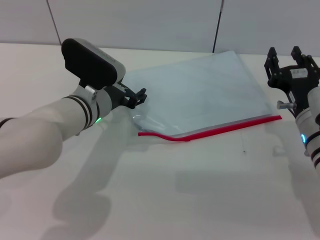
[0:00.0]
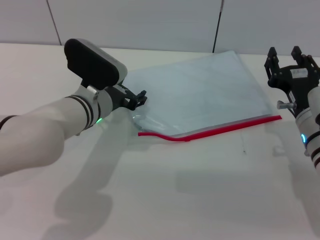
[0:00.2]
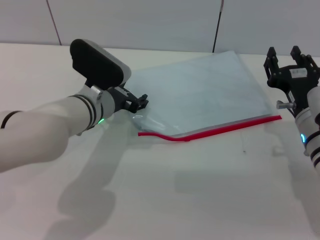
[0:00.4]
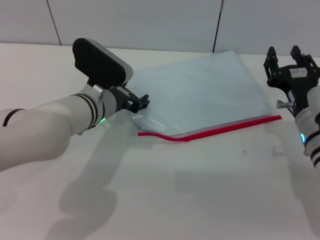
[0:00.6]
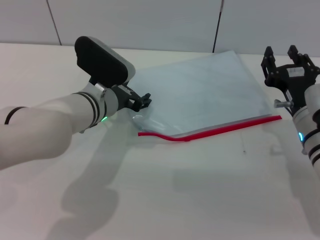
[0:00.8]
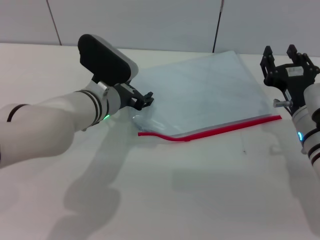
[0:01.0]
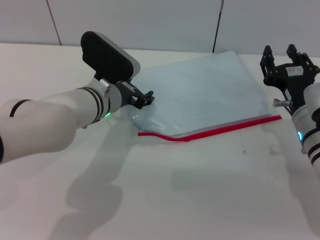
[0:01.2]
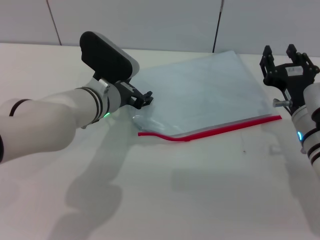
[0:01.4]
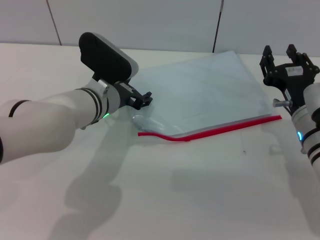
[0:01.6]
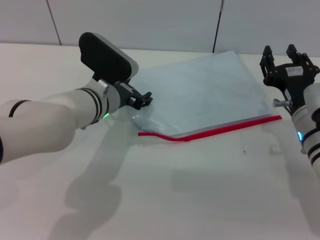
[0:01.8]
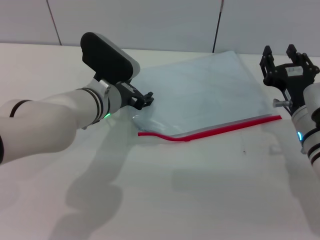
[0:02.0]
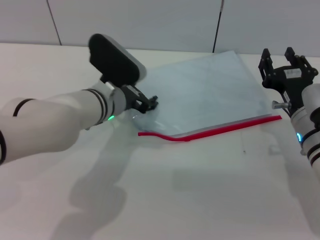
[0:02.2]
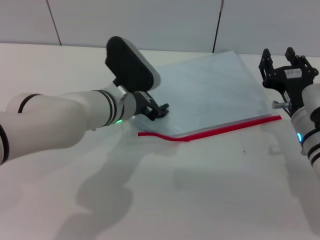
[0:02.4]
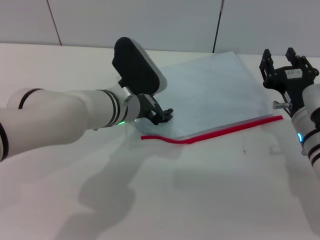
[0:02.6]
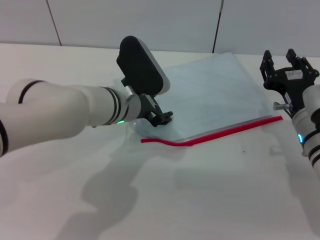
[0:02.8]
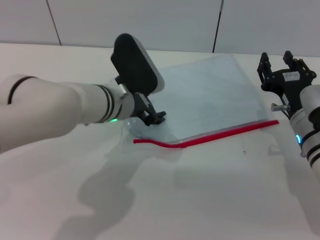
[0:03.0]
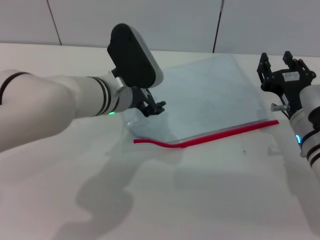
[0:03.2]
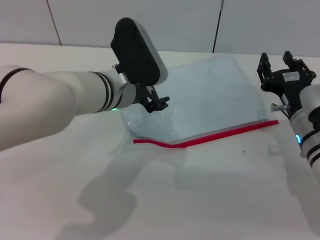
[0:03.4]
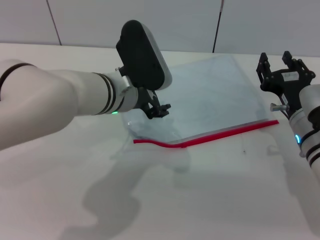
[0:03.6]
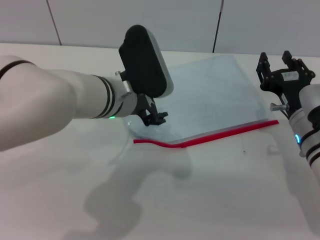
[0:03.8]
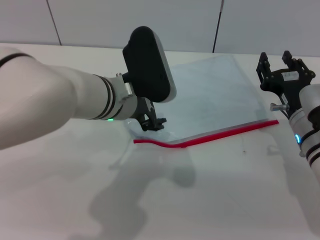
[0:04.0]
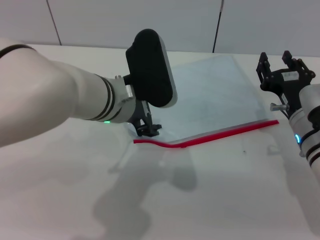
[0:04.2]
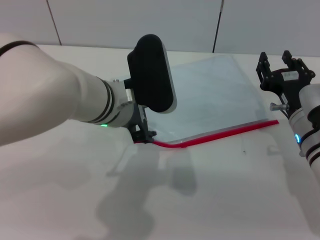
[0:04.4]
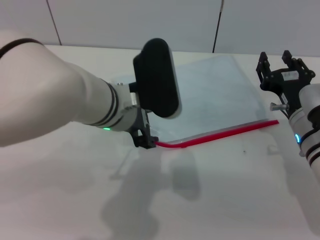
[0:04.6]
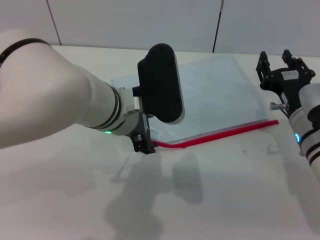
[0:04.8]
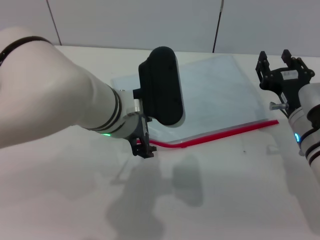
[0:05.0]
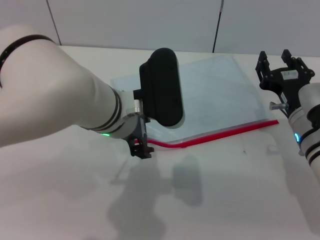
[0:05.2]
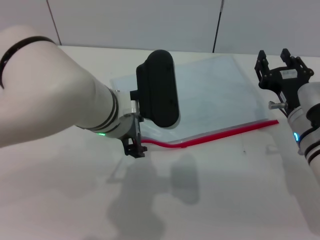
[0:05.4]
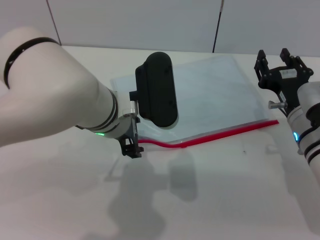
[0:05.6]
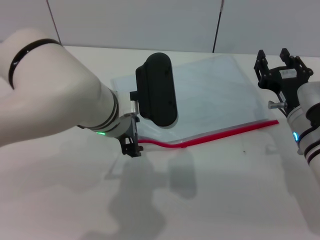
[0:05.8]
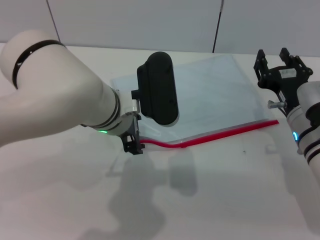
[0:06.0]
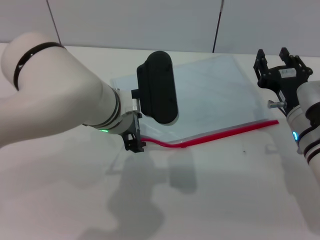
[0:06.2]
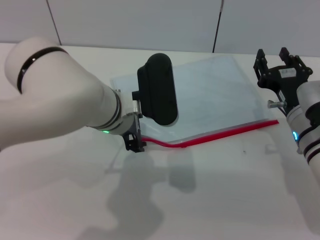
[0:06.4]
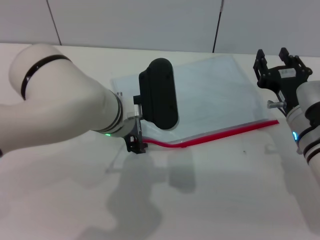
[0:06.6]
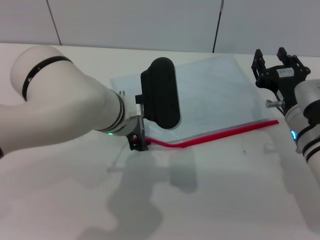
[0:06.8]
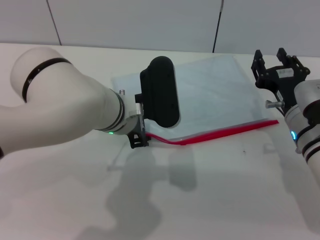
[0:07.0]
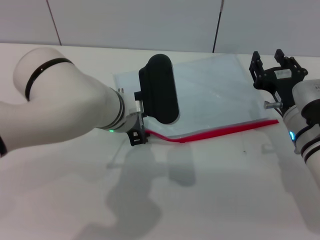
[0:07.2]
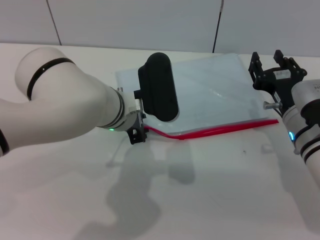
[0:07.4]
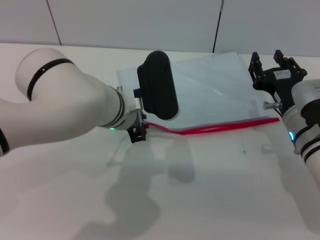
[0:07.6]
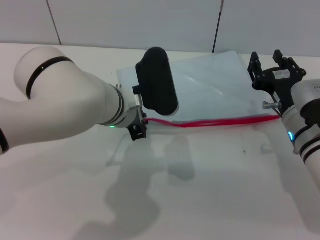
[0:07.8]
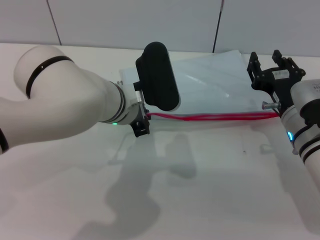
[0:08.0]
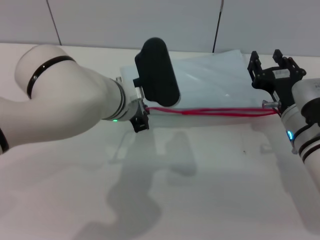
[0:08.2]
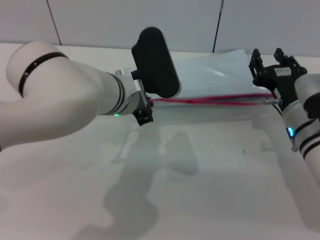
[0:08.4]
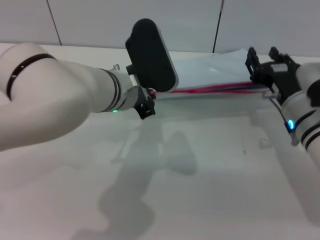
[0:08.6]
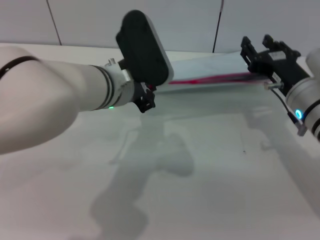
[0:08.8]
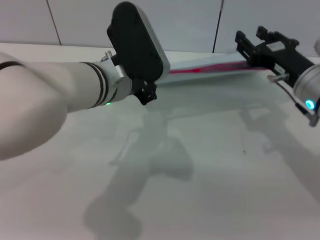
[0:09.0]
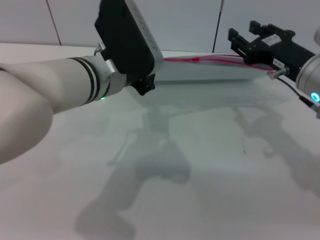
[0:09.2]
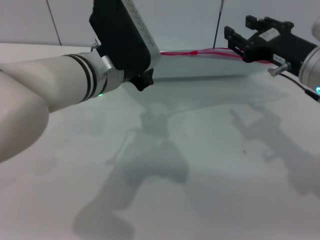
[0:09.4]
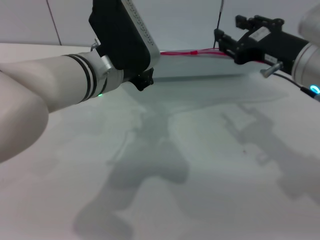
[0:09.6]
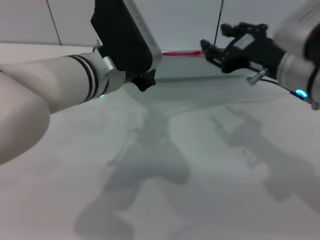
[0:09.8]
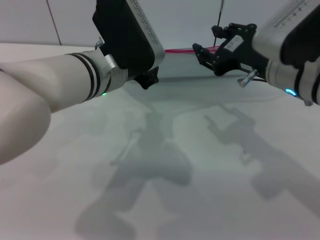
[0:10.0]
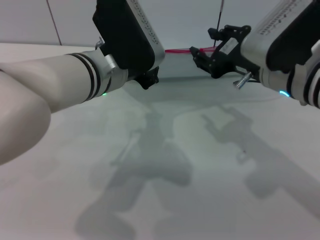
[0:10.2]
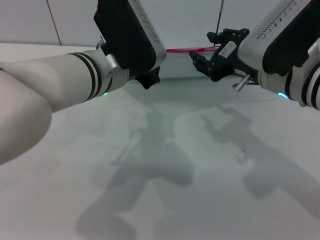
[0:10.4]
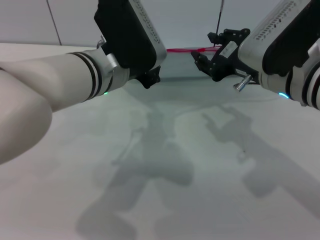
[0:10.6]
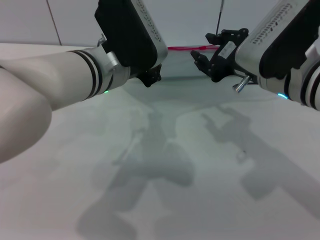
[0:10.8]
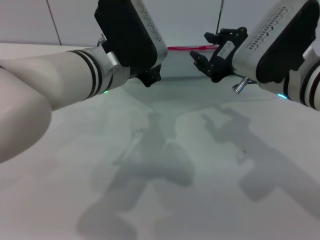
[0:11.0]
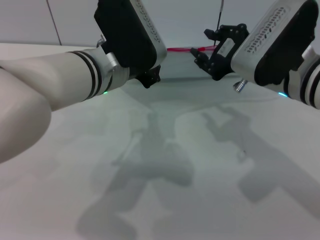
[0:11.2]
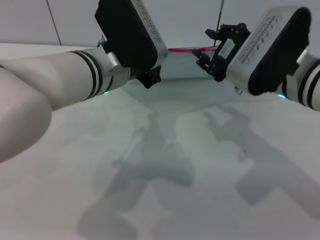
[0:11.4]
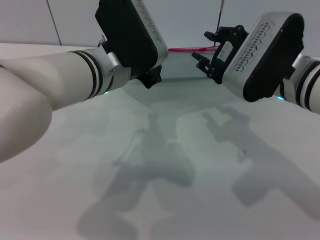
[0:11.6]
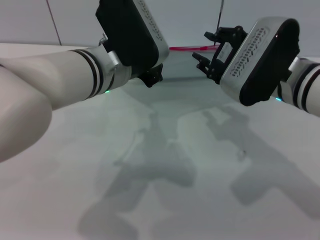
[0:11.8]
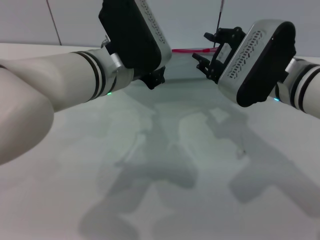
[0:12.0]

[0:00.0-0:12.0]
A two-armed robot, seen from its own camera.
Step, 0:00.0 to 0:08.4: Pick up the transparent plastic bag with the left gripper.
0:00.0 to 0:01.6: The grippers make only small movements.
0:03.0 to 0:04.4: The left gripper shifts roughly 5 cm upward.
0:04.4 to 0:06.0: The grippers stay close to where they were, moving slightly.
0:06.0 to 0:07.6: The left gripper closes its fingers.
0:07.6 to 0:09.0: The right gripper shifts some 5 cm upward.
0:09.0 to 0:10.4: The right gripper shifts approximately 5 cm to the left.

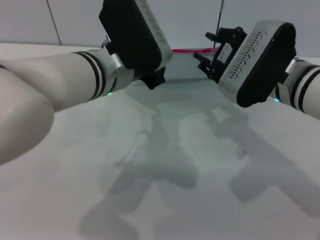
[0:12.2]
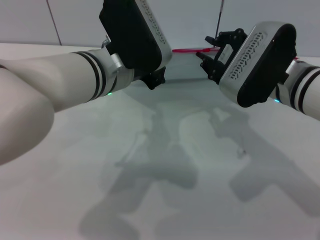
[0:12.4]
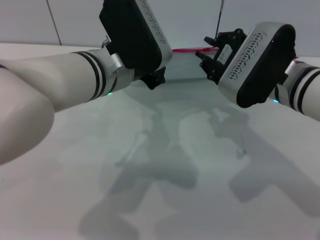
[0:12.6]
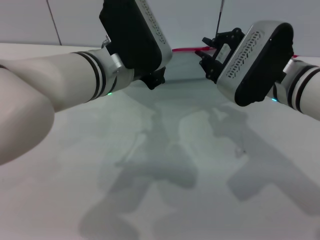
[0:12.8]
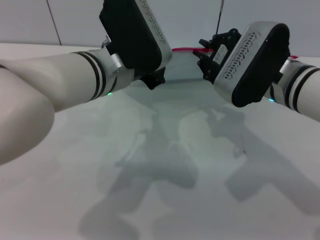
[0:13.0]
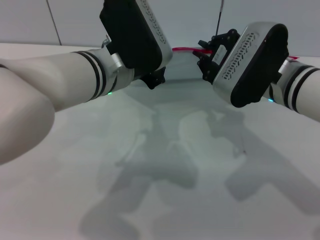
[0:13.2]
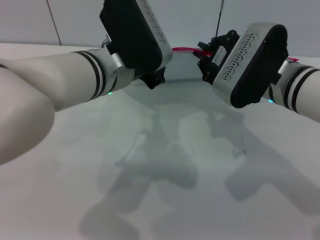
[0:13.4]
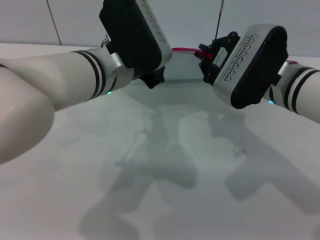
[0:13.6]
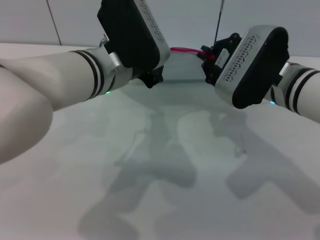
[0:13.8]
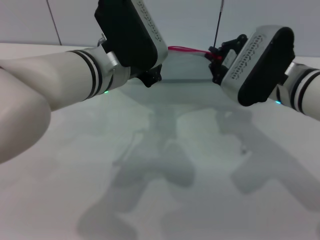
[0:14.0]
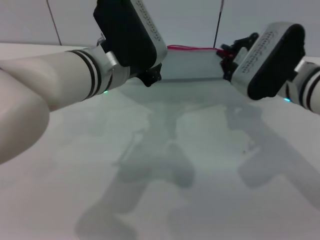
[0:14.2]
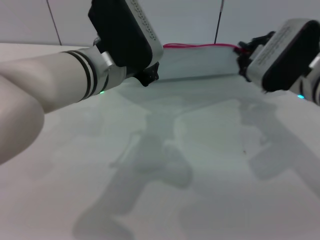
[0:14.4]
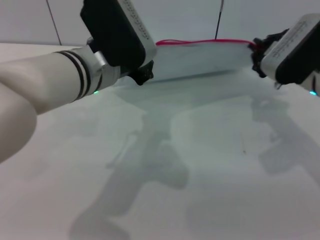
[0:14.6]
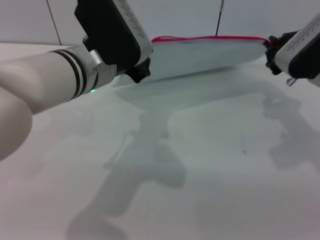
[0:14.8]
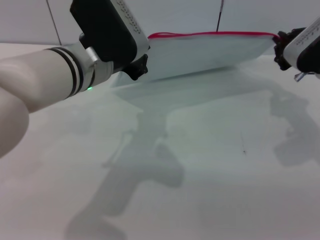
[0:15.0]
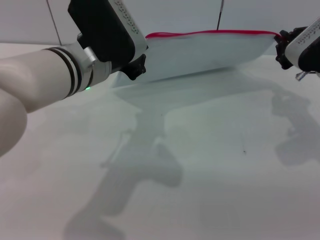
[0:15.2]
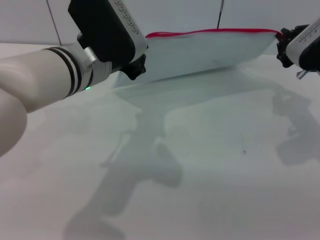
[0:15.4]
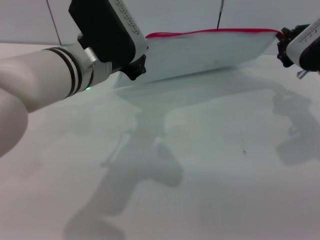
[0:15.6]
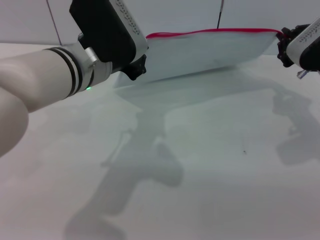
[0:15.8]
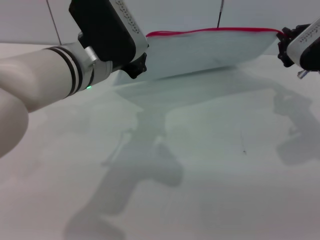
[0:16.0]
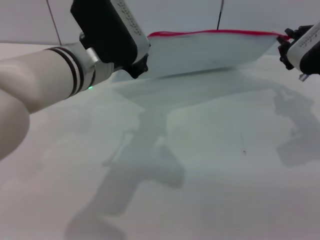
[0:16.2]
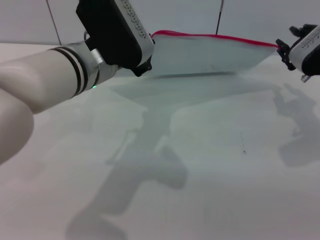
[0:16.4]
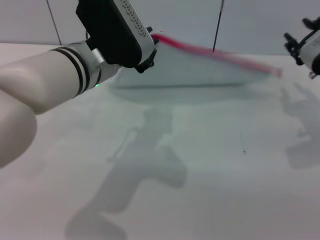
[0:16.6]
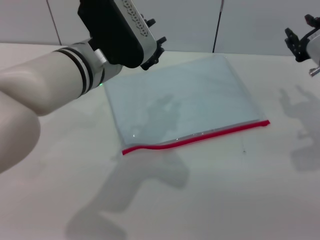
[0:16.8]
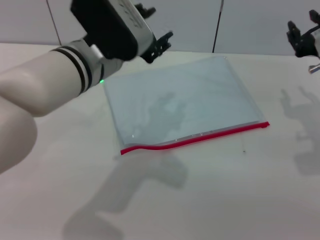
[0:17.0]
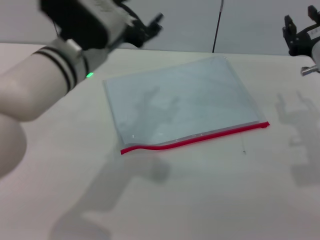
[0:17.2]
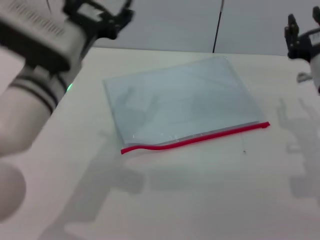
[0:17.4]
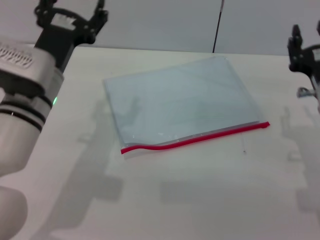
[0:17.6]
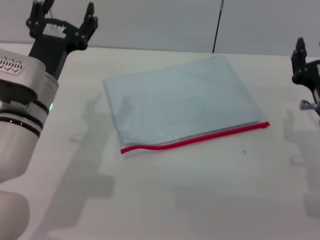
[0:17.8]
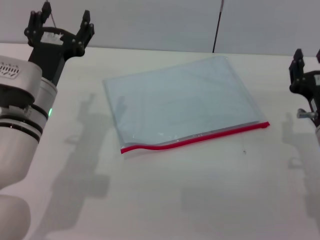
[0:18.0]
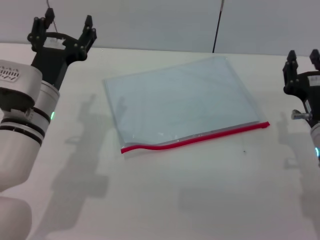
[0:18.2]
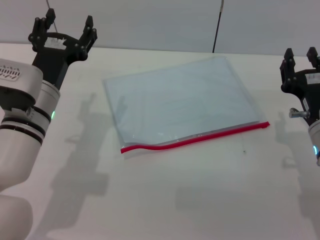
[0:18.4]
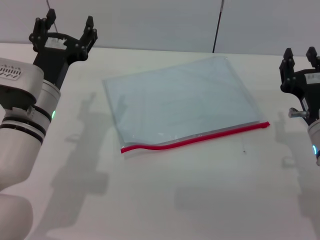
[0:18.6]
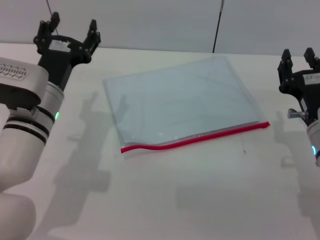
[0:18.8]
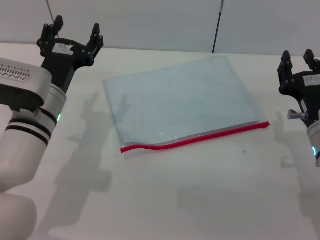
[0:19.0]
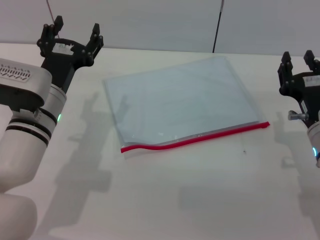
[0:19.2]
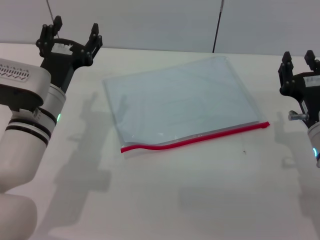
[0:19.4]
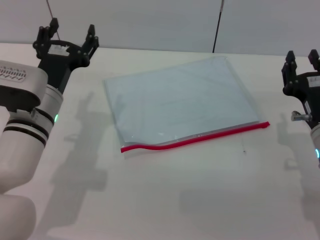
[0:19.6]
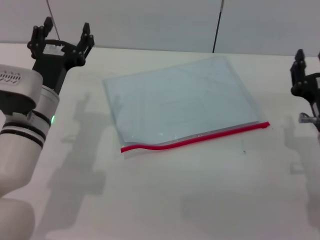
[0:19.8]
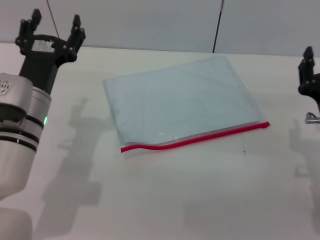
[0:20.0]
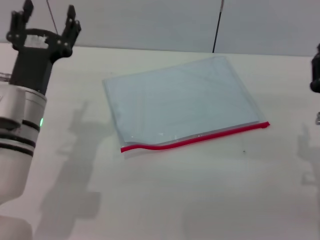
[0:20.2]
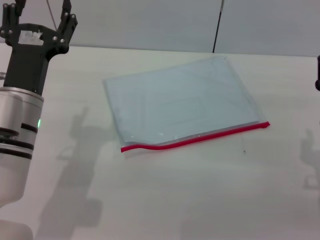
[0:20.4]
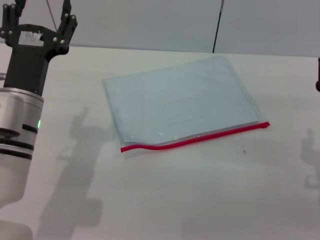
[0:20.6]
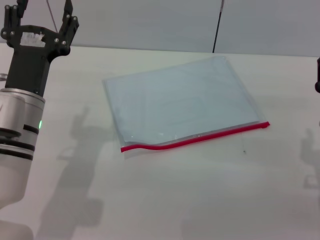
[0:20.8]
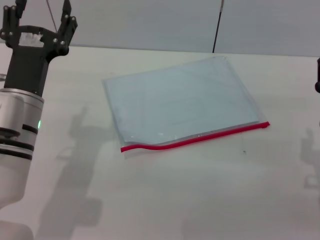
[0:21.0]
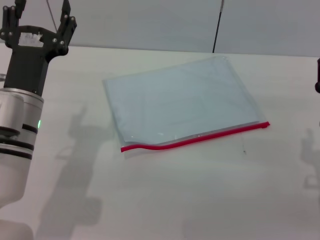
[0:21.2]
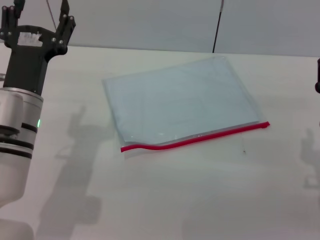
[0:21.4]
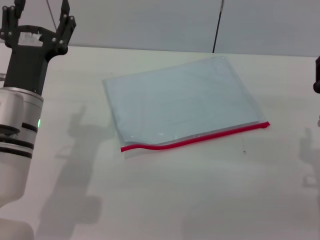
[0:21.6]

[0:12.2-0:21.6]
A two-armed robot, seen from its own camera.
Step, 0:12.2 to 0:16.4: Pulling up the zipper on the transparent plastic bag with the right gripper to close it.
Step, 0:16.6 to 0:18.2: Place the transparent plastic bag.
0:12.2 to 0:13.8: The right gripper closes.
0:13.8 to 0:15.4: The right gripper is displaced to the right by roughly 10 cm.
0:15.4 to 0:17.0: The right gripper opens. Meanwhile the left gripper opens up.
0:17.0 to 0:18.4: The right gripper goes some 10 cm downward and backward. Meanwhile the left gripper shifts some 10 cm downward and to the left, and opens its fingers.
0:18.4 to 0:21.6: The grippers make only small movements.
